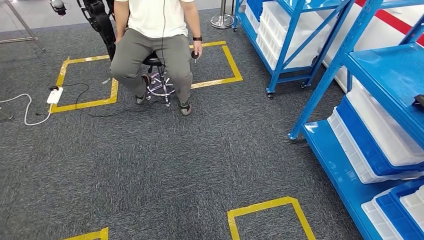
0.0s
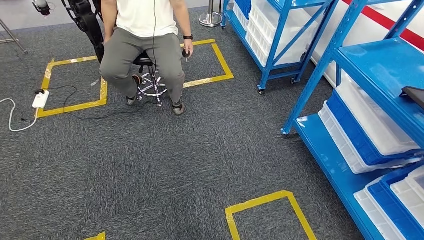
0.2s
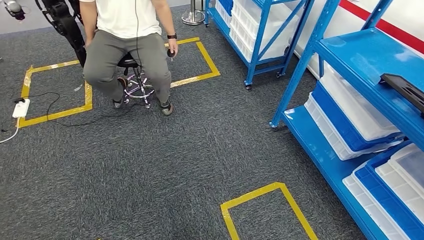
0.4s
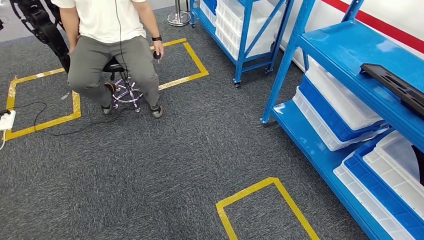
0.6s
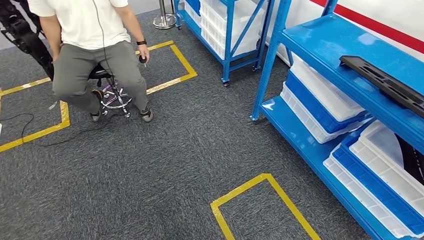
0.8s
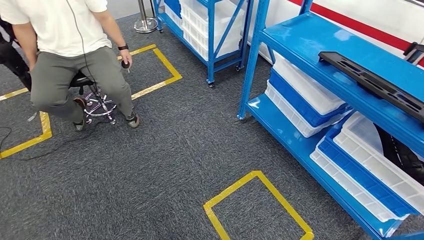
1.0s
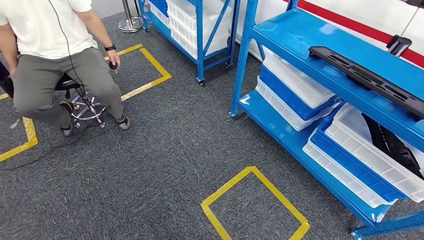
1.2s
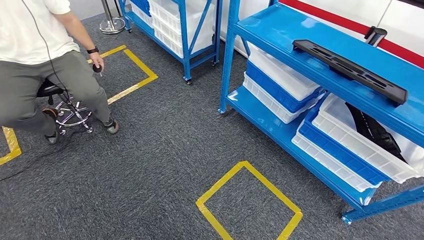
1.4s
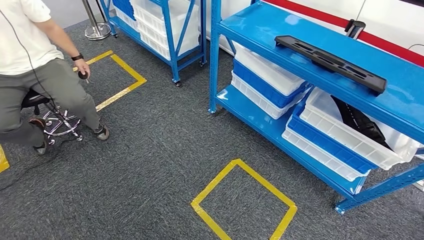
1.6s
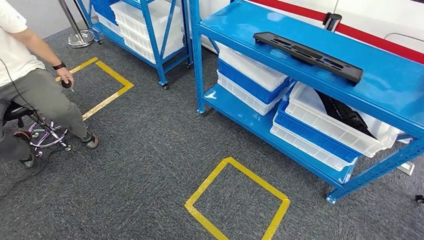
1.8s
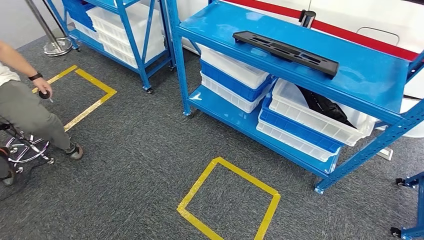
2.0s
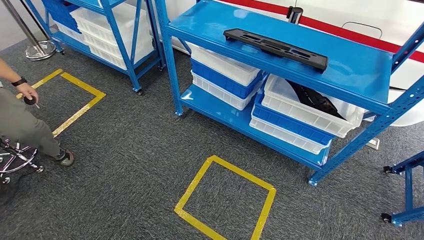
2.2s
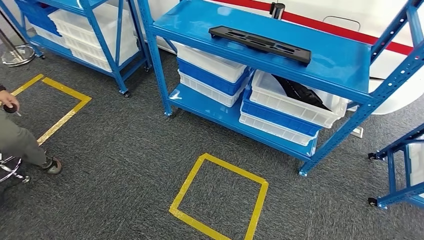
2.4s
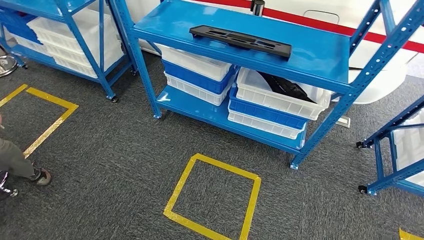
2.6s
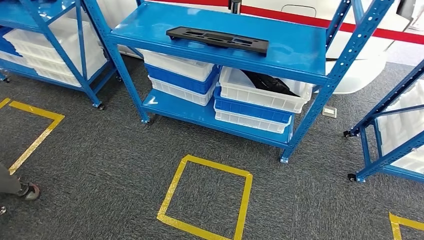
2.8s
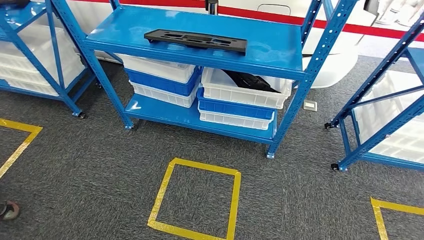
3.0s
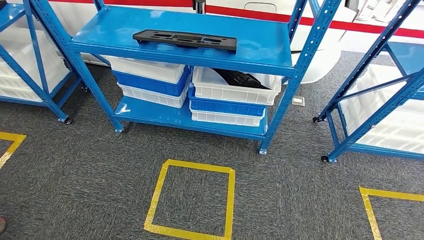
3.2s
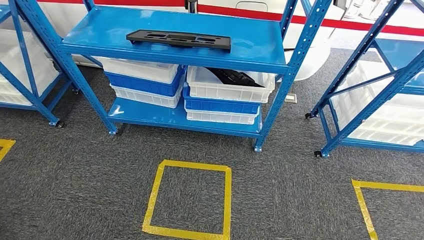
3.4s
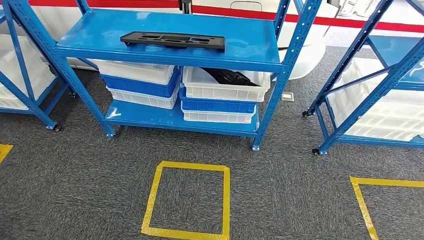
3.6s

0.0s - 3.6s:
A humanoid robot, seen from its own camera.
Step, 0.0s - 3.6s: Move to the initial position of the shelf.
